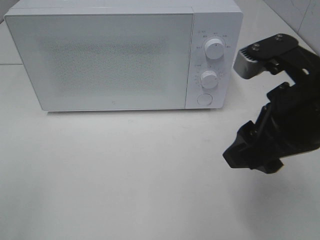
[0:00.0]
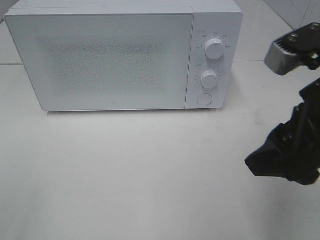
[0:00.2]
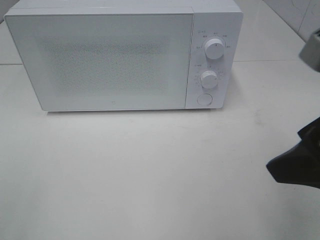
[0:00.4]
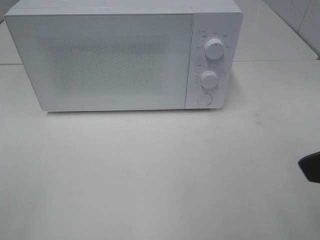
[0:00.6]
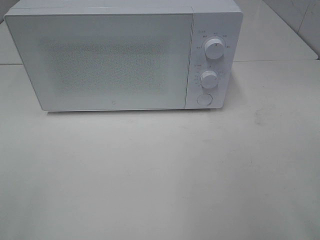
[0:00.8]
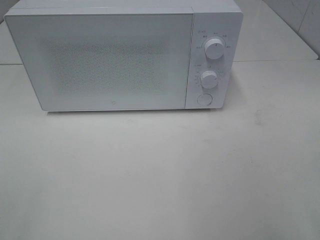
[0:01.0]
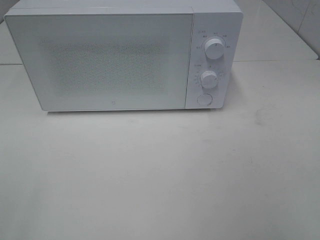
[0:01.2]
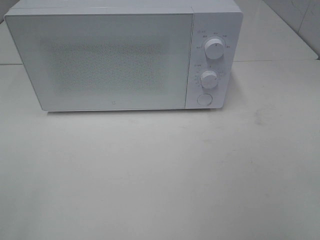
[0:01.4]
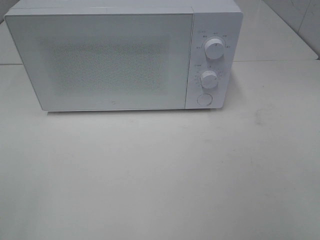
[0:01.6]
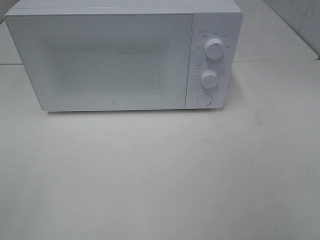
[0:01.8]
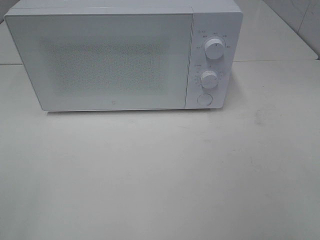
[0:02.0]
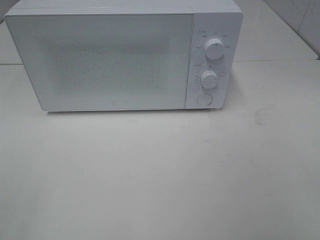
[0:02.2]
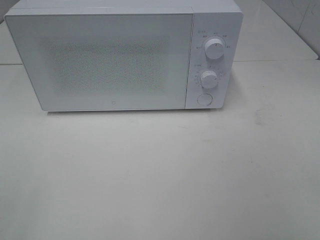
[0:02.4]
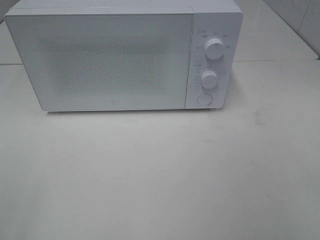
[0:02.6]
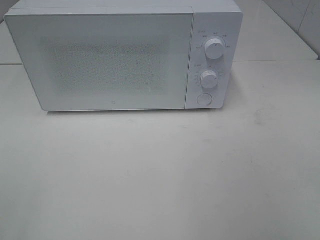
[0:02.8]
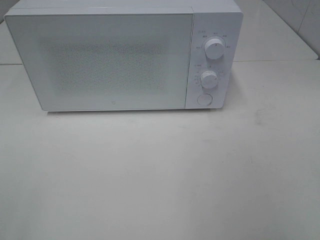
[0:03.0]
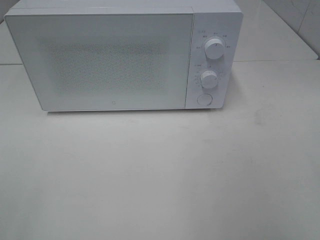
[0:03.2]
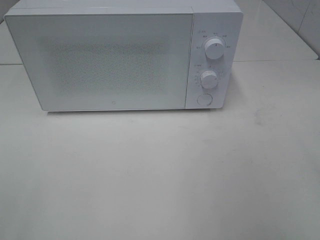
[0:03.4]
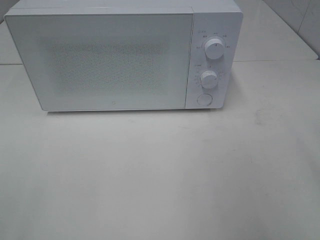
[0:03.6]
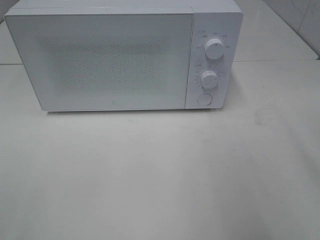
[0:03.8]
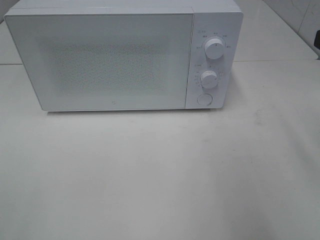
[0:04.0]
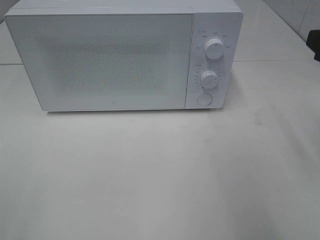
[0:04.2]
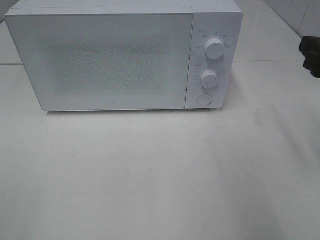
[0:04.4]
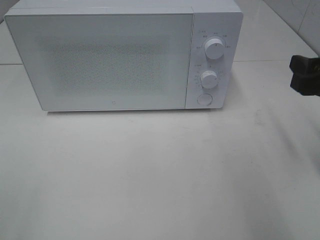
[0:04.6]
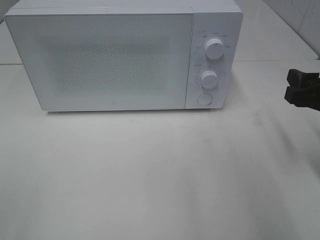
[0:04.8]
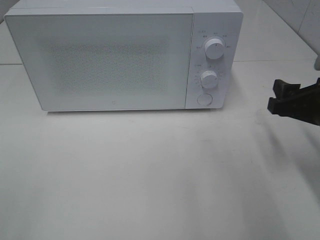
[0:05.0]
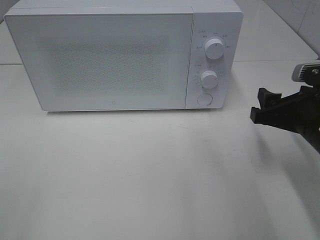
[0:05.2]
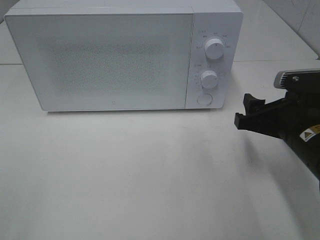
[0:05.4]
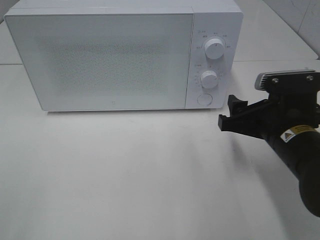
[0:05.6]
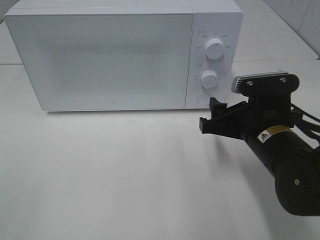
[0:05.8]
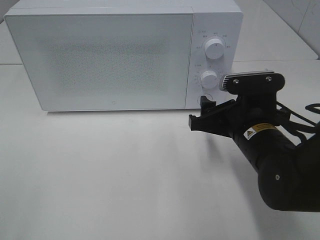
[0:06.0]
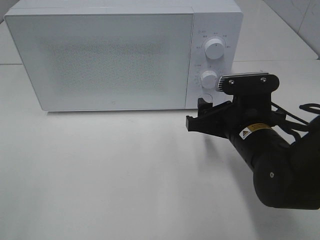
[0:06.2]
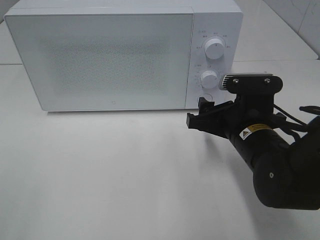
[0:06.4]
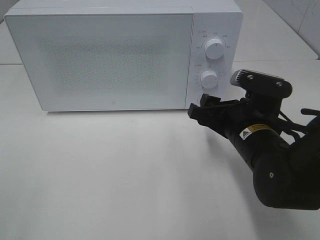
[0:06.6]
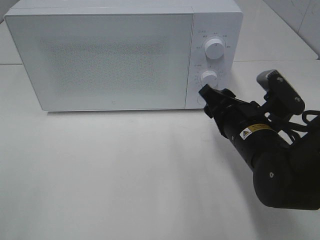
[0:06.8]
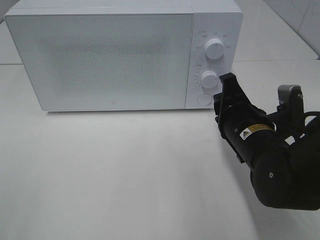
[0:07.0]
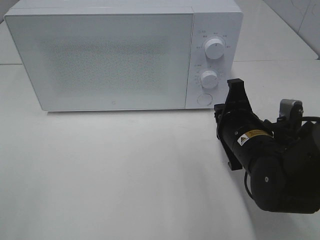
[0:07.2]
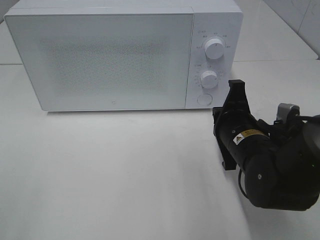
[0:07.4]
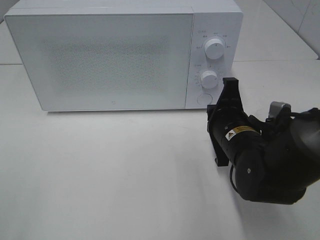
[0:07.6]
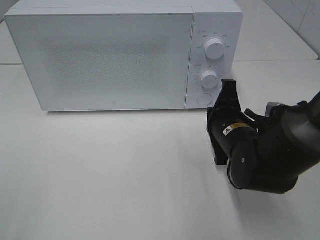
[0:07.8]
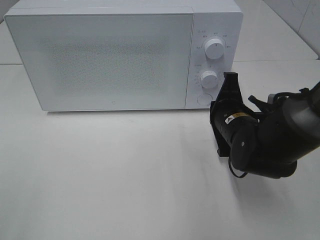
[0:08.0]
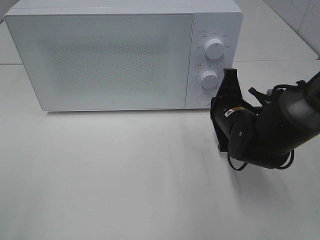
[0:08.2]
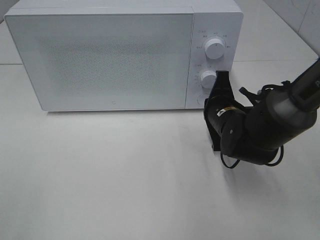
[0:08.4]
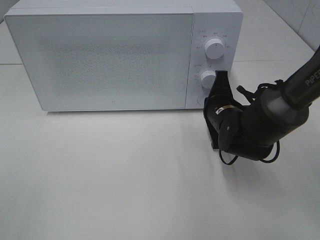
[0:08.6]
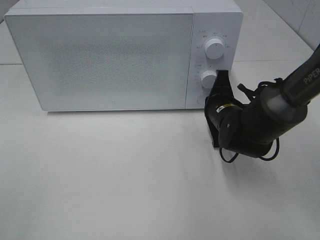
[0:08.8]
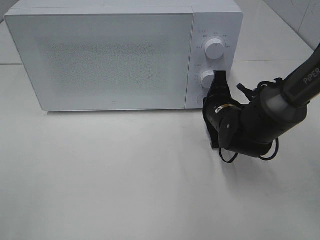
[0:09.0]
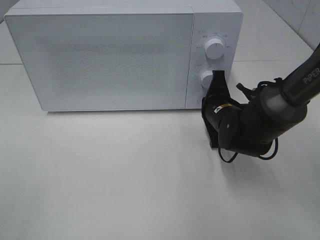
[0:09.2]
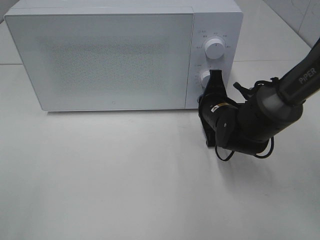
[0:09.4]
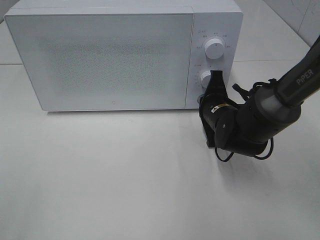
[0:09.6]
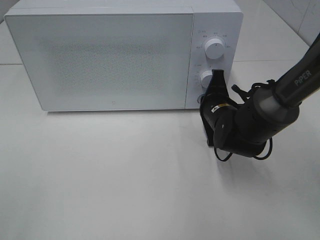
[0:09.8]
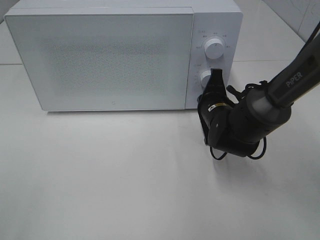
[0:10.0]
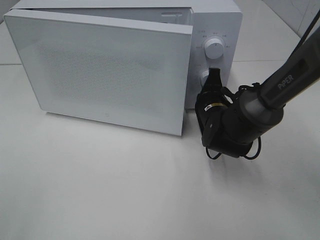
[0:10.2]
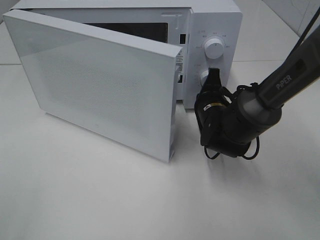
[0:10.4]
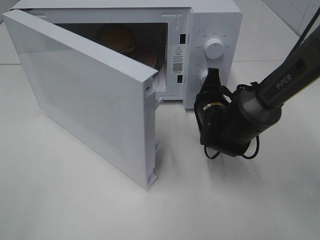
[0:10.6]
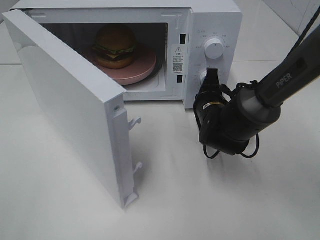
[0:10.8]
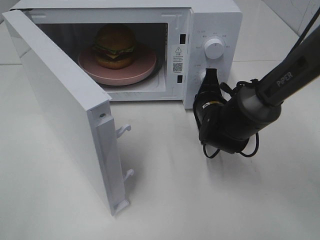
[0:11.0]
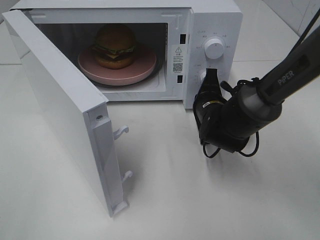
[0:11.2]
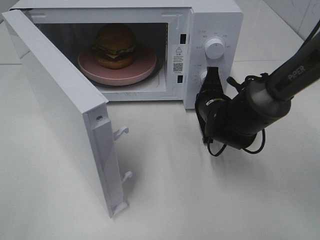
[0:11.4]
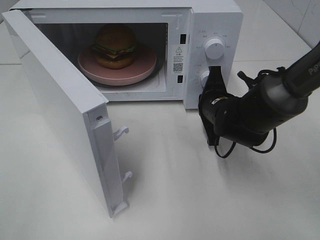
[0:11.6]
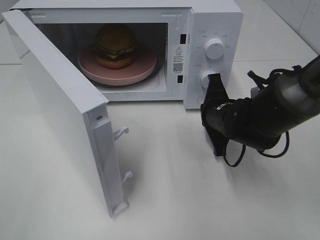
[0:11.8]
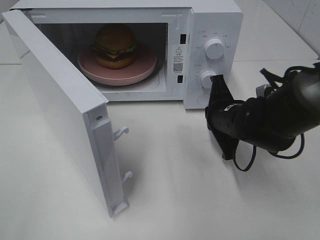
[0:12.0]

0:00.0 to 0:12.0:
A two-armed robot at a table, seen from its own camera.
Task of the whole recording: Heat the burger.
Step, 0:00.0 to 0:11.6: Right hand: press the switch.
0:00.0 to 0:01.6: The right gripper is displaced backward and to the right by some 20 cm.
0:03.0 to 0:04.4: The right gripper heads forward, covering some 15 cm.
0:04.4 to 0:06.0: The right gripper travels to the left and downward by about 15 cm.
0:06.0 to 0:07.6: The right gripper closes.
0:07.6 to 0:09.0: The right gripper moves forward, some 10 cm.
0:10.4 to 0:12.0: The right gripper moves about 5 cm.

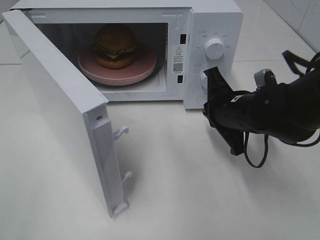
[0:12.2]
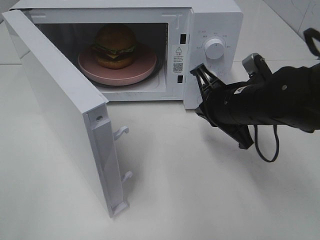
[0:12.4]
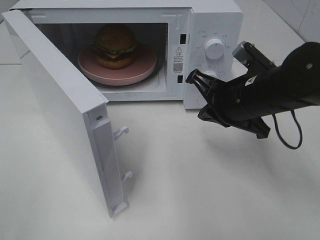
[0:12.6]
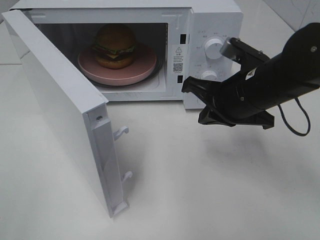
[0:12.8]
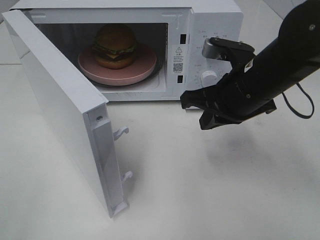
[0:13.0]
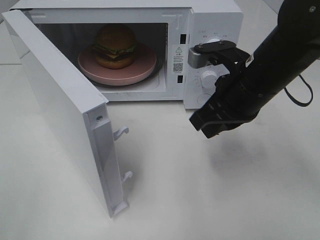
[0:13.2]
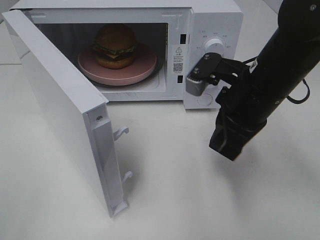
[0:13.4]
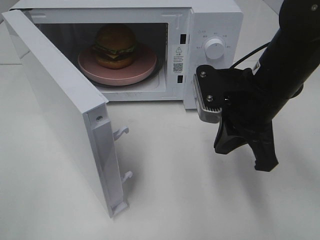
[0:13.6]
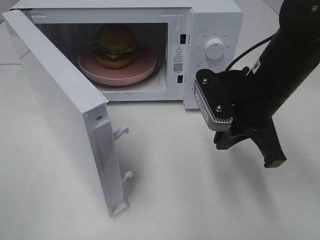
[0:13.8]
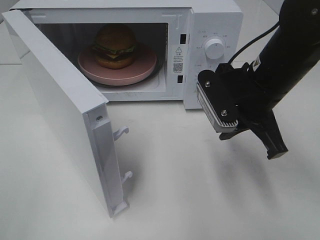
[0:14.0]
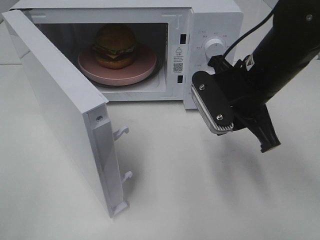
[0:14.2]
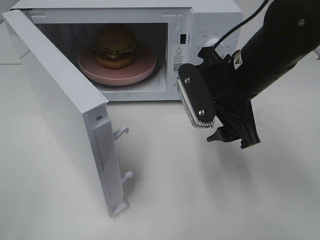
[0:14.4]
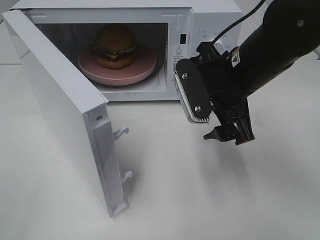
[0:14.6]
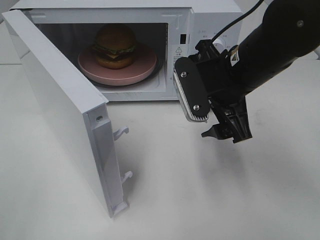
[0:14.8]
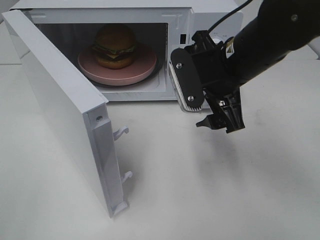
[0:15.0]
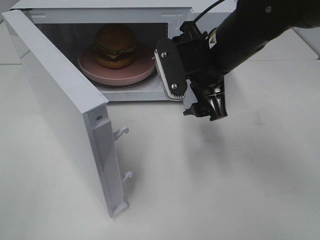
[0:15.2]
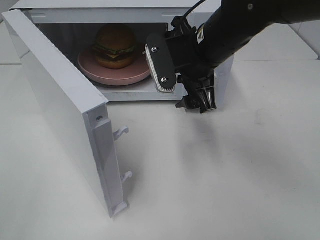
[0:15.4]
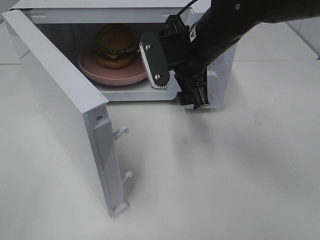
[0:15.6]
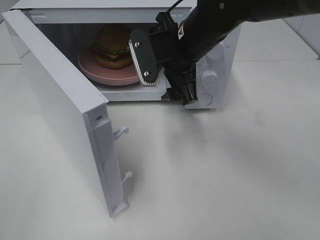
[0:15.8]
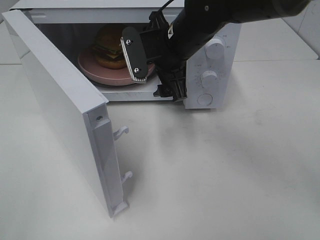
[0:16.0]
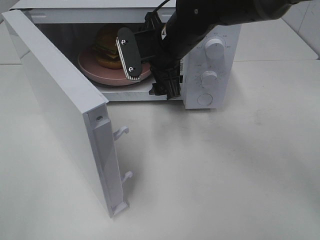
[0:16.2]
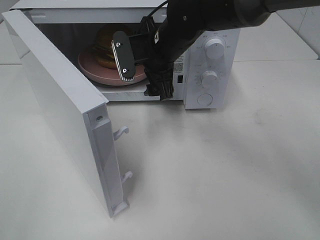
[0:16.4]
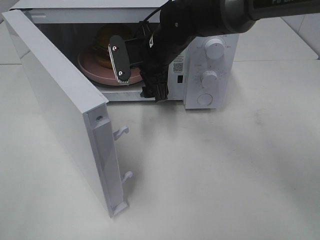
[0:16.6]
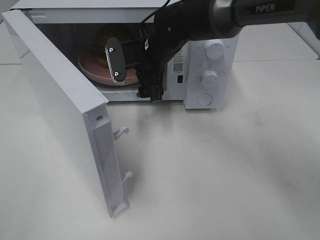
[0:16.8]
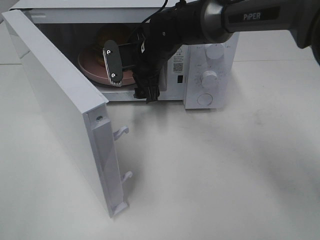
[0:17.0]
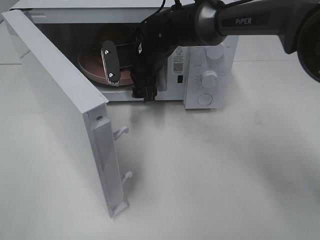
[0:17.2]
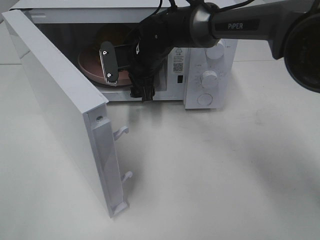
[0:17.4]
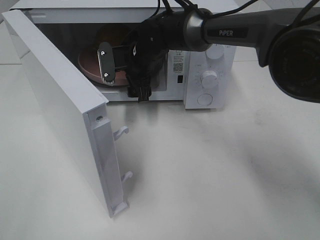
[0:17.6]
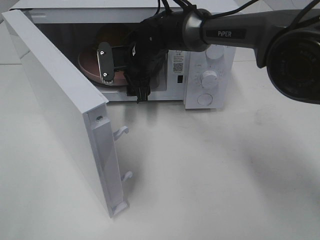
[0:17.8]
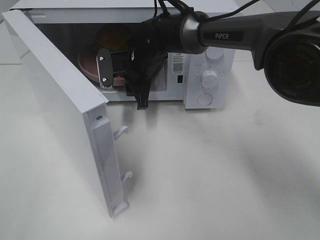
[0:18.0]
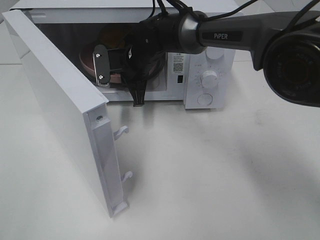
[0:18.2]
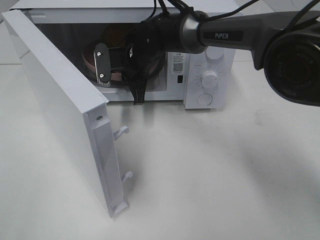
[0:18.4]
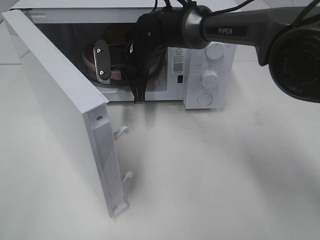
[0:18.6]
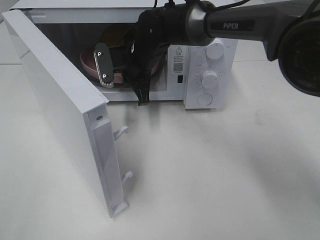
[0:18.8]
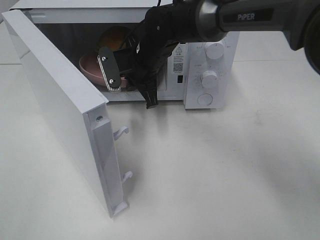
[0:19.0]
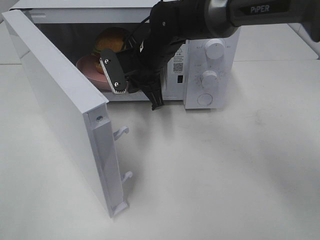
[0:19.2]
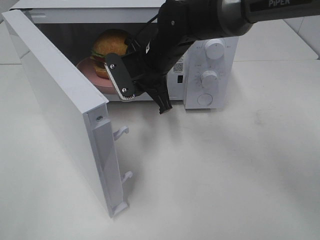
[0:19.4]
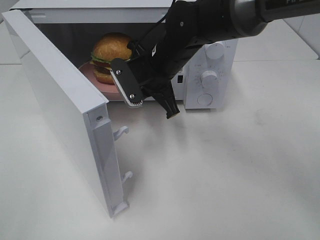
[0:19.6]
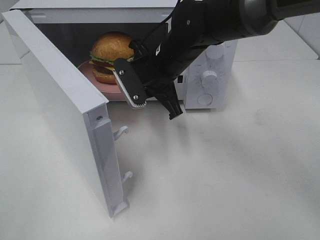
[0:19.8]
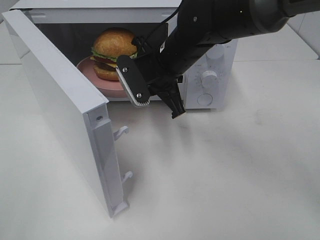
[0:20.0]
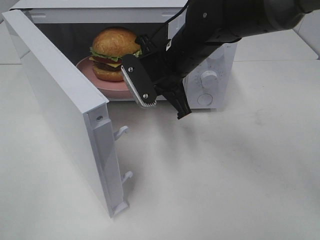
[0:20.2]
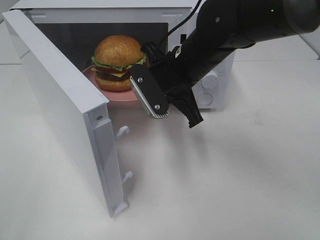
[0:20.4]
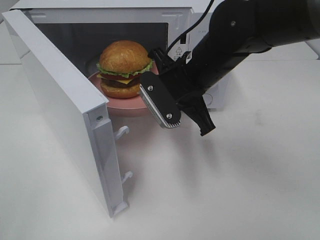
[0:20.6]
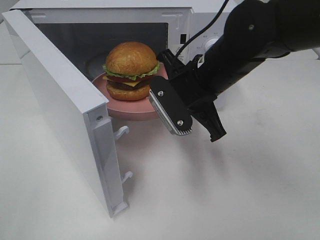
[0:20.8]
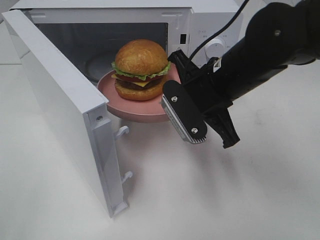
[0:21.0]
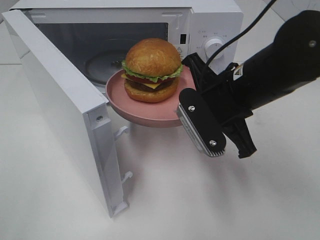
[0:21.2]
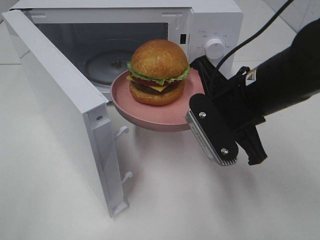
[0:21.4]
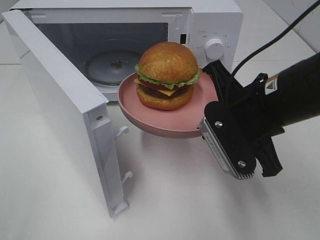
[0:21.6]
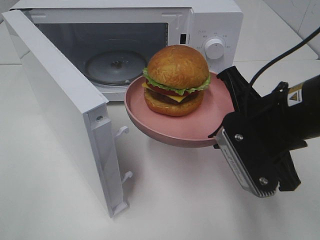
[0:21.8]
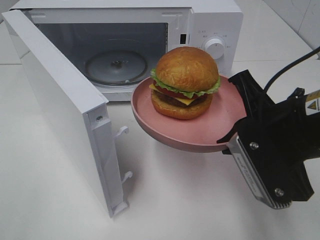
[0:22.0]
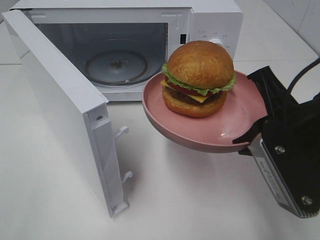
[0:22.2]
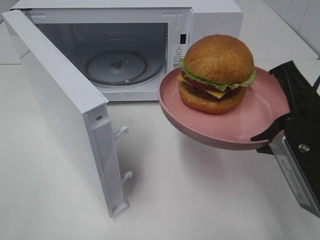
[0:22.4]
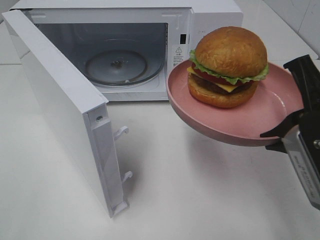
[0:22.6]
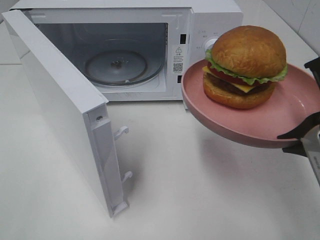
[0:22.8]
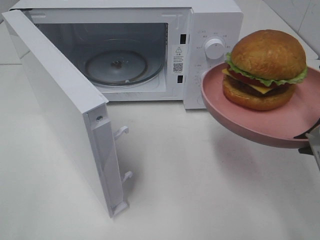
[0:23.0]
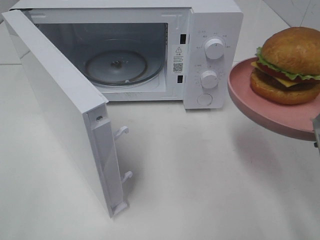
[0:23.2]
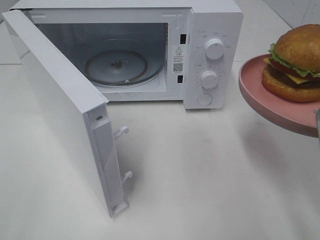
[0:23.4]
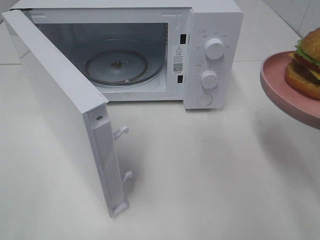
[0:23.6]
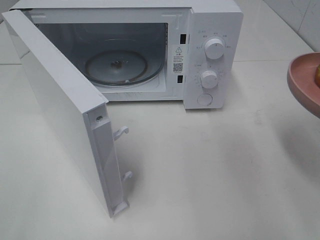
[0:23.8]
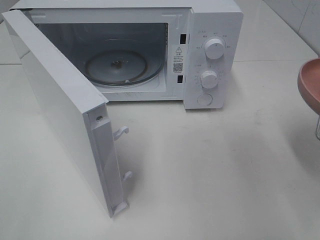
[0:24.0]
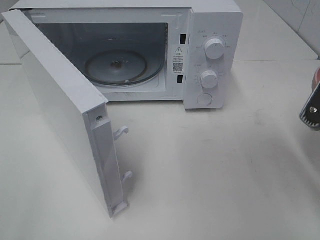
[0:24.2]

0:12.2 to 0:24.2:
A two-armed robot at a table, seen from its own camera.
Task of the whole recording: Heat the burger.
Step, 0:12.2 to 0:18.2: Right hand: grab the plate with the hamburger.
0:12.2 to 0:13.8: The right gripper shifts roughly 5 cm upward.
0:13.8 to 0:15.2: The right gripper heads to the left, covering some 5 cm, and opens up.
0:15.2 to 0:16.6: The right gripper shifts approximately 10 cm forward and to the left.
0:16.6 to 0:18.2: The right gripper changes place by roughly 5 cm, and closes its fingers.
0:18.2 to 0:19.8: The right gripper shifts about 10 cm backward.
0:19.8 to 0:21.2: The right gripper moves backward and to the right, about 15 cm.
0:21.2 to 0:22.6: The right gripper travels backward and to the right by roughly 15 cm.
0:22.6 to 0:24.2: The right gripper ends up about 5 cm from where it was.
